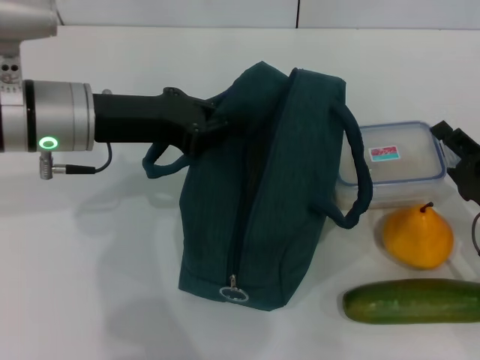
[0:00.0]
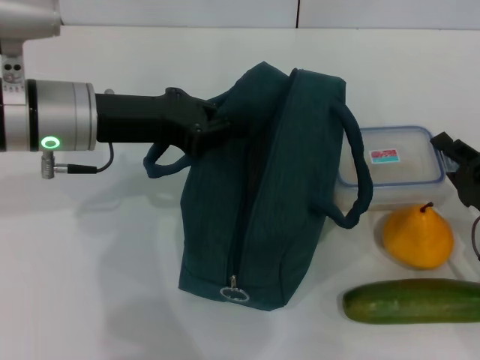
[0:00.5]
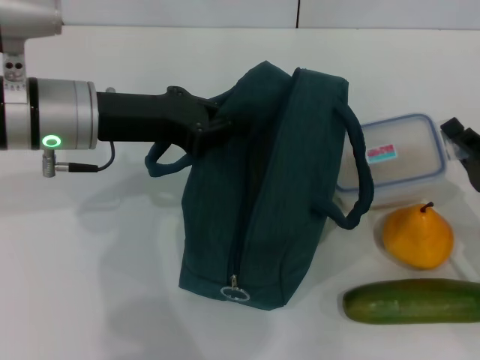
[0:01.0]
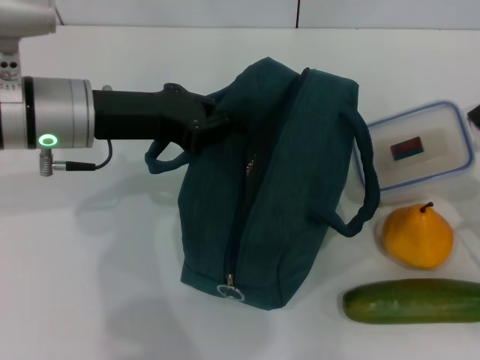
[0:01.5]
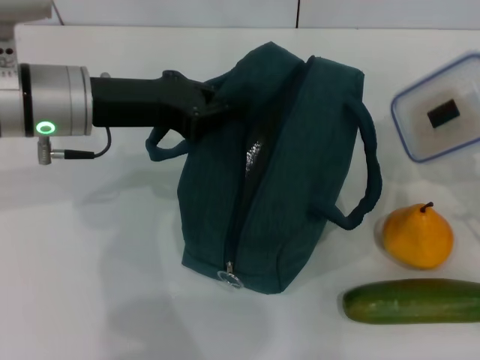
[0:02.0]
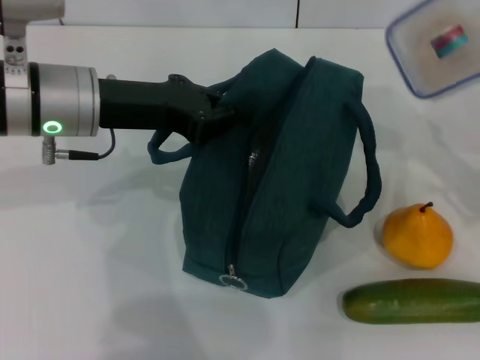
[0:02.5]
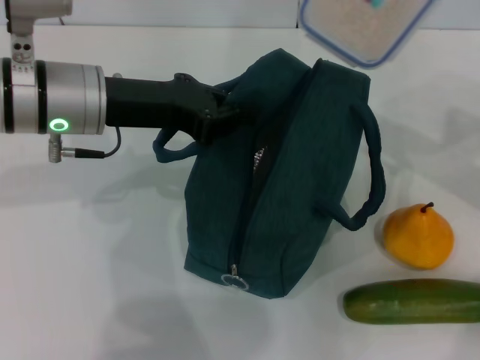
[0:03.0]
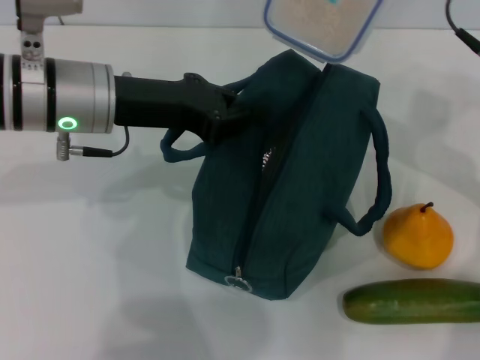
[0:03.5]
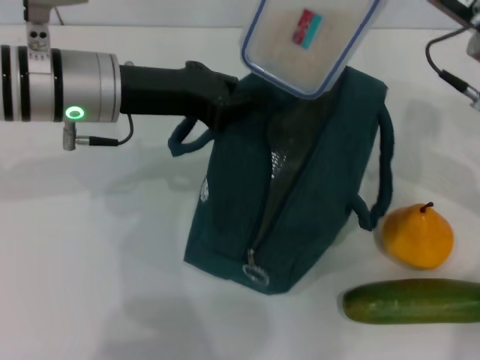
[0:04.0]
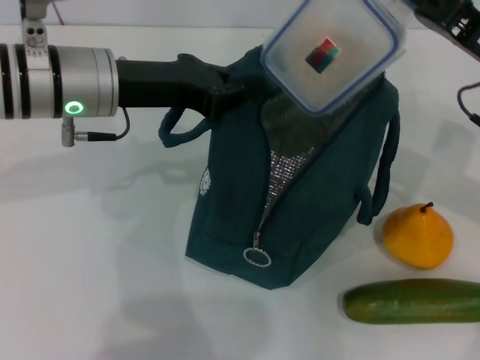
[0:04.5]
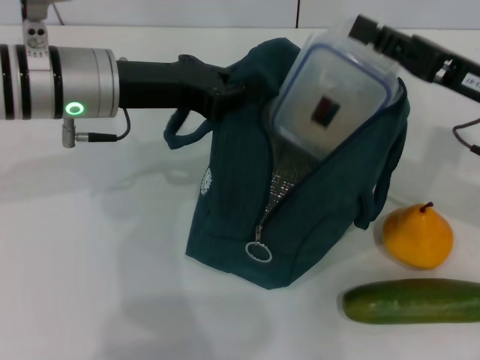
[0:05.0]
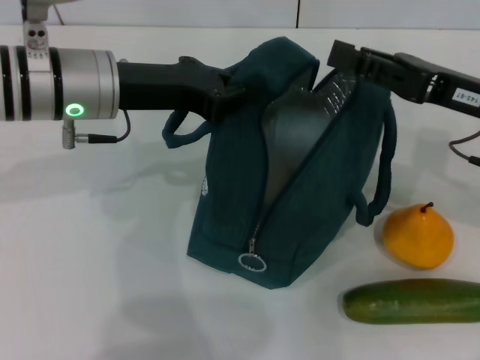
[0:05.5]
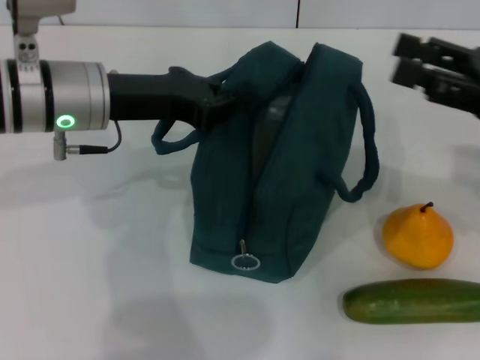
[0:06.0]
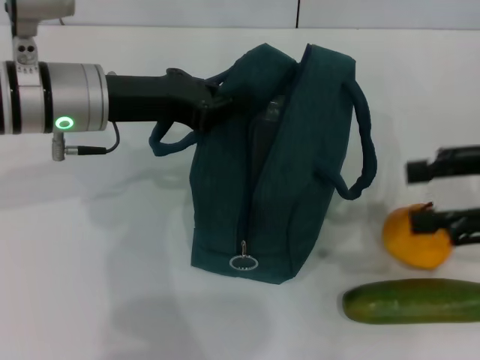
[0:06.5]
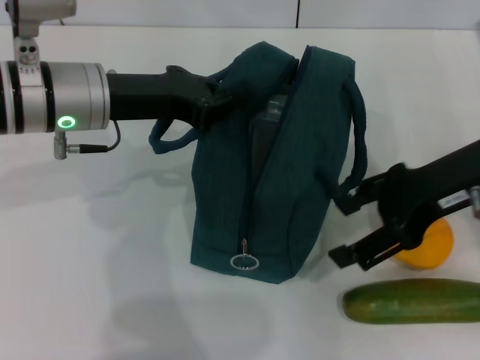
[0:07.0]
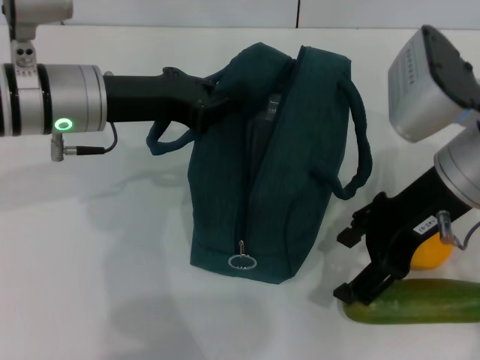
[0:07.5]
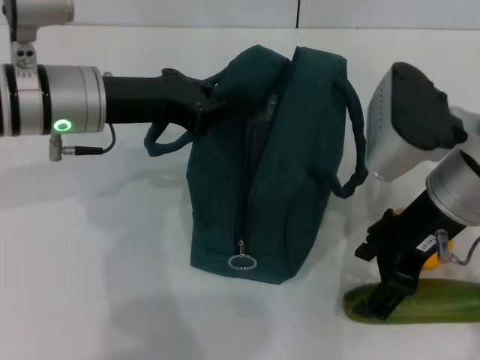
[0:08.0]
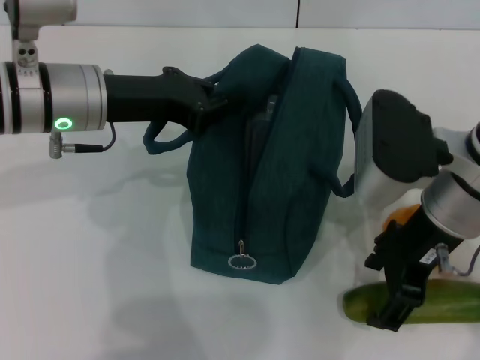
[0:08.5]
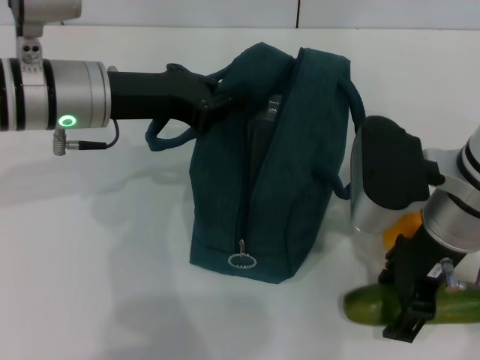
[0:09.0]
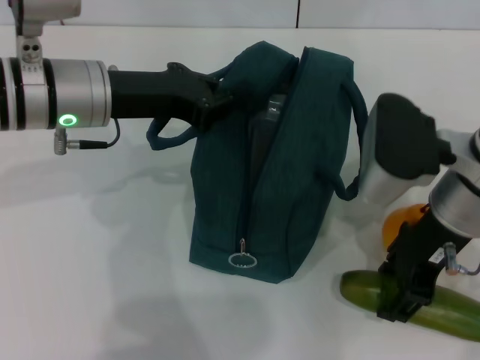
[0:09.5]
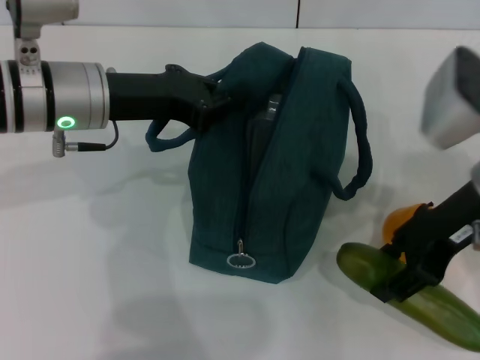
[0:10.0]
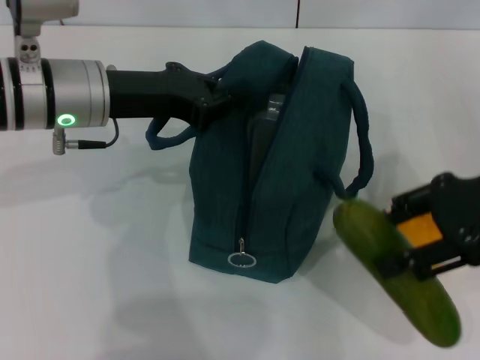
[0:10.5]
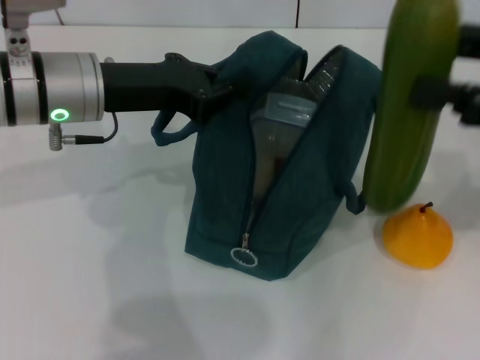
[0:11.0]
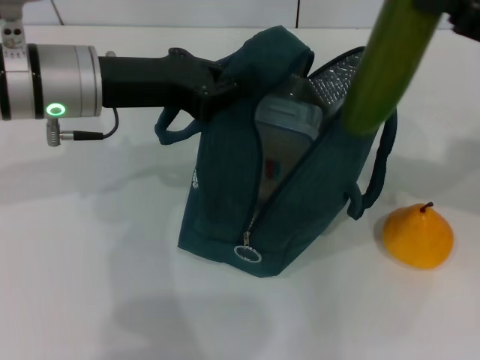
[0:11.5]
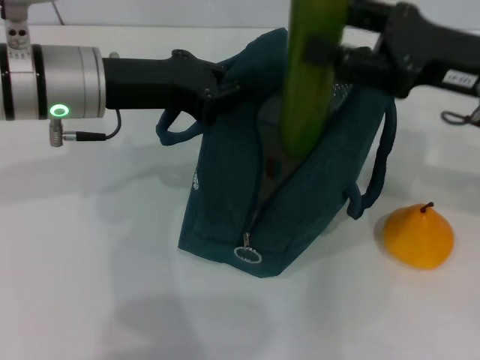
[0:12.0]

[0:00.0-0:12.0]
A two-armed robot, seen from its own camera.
Step, 0:01.5 to 0:05.5: Place the lunch box into the lunch bag with your right hand.
Step, 0:06.0 to 0:09.0: Pick up the cucumber with your right hand.
0:00.0 to 0:02.0: The right gripper moves upward, roughly 5 cm, and closes its fingers.
0:02.0 to 0:04.0: The right gripper moves to the left, upward and forward, about 20 cm.
0:04.0 to 0:06.0: The right gripper heads to the right and backward, covering about 10 cm, and opens its fingers.
0:06.0 to 0:08.0: The right gripper shifts about 15 cm to the left.
0:10.0 to 0:12.0: The right gripper travels to the right and back again, about 10 cm each way.

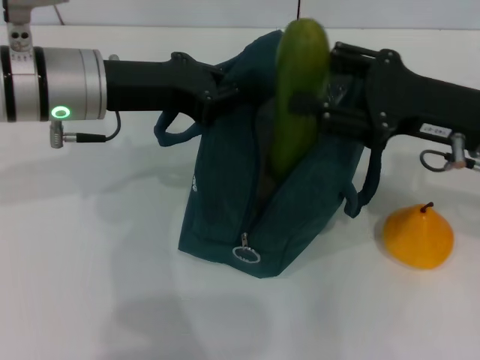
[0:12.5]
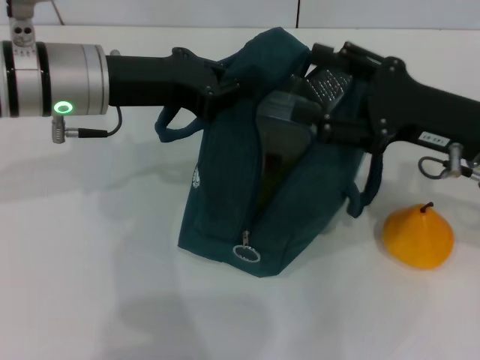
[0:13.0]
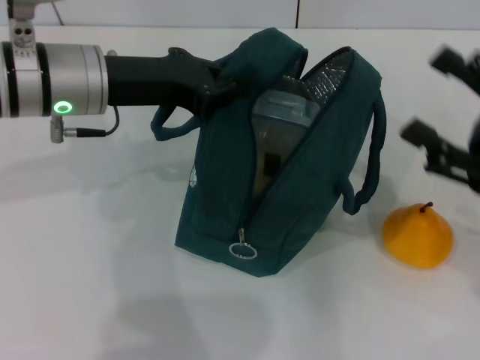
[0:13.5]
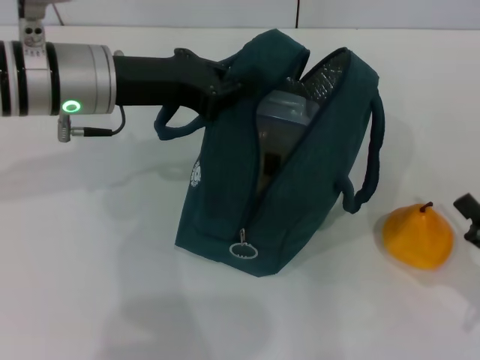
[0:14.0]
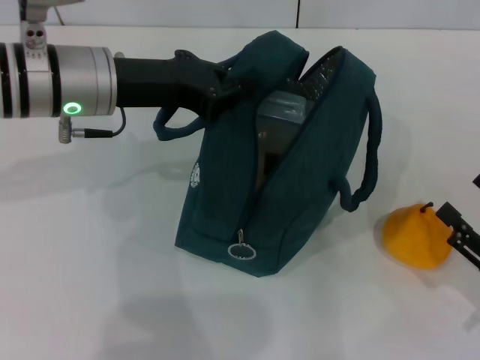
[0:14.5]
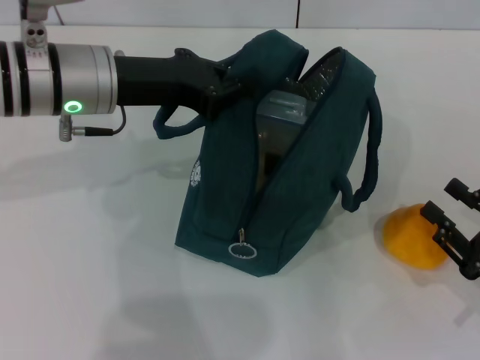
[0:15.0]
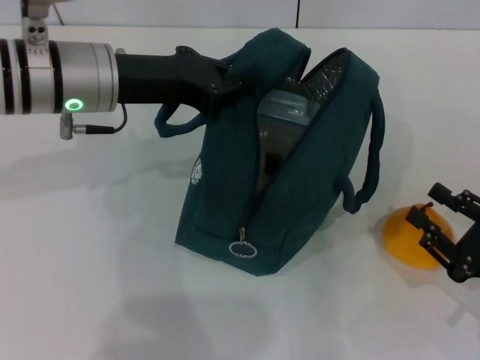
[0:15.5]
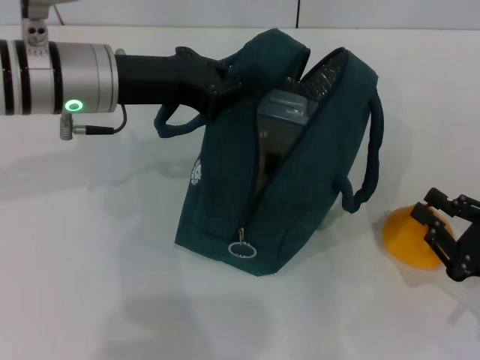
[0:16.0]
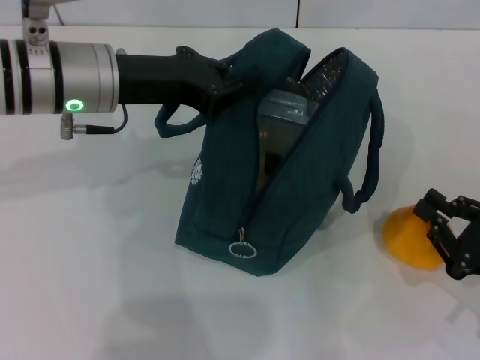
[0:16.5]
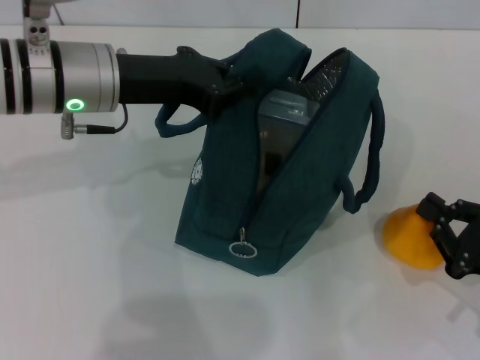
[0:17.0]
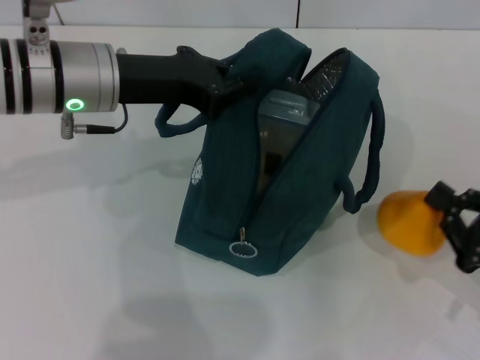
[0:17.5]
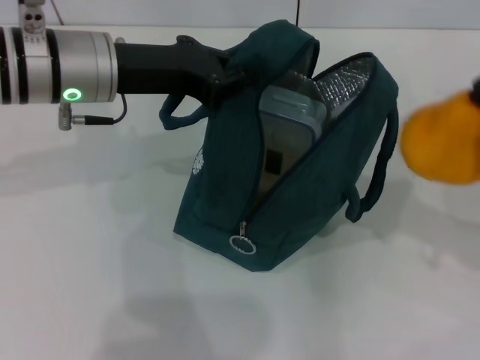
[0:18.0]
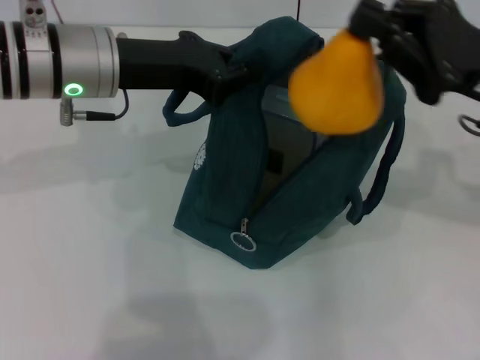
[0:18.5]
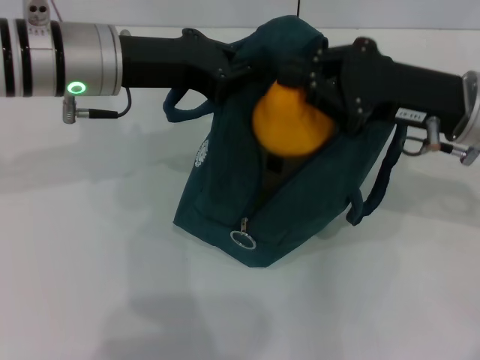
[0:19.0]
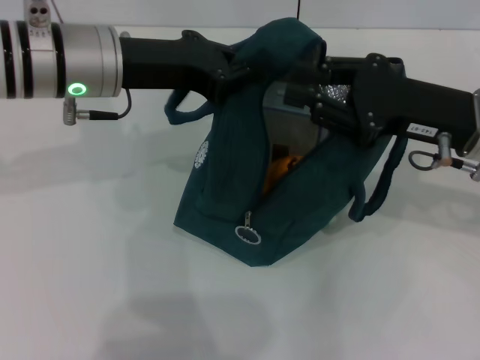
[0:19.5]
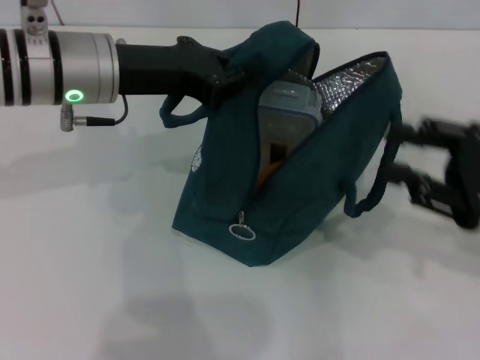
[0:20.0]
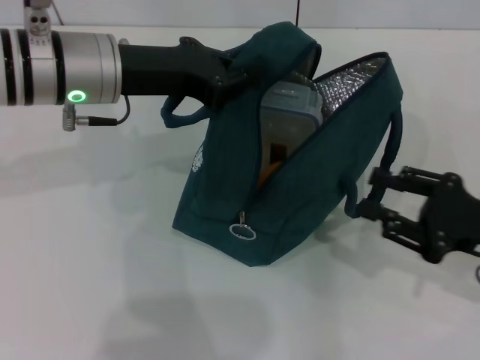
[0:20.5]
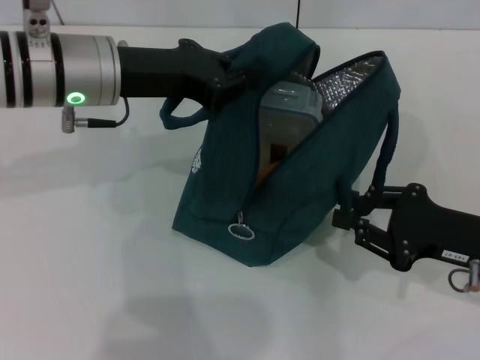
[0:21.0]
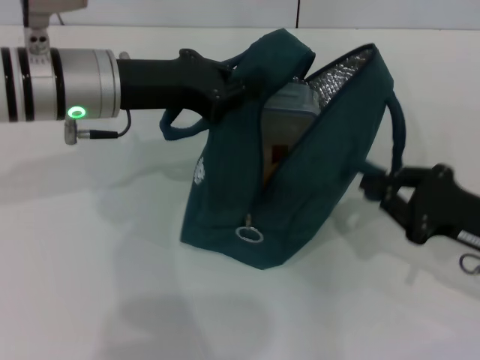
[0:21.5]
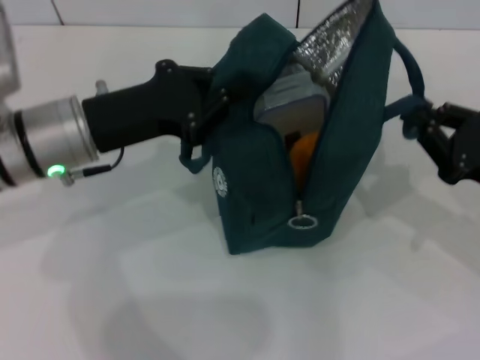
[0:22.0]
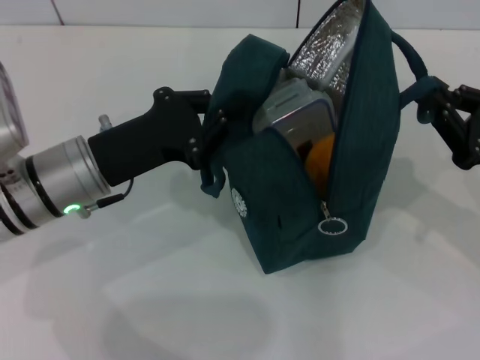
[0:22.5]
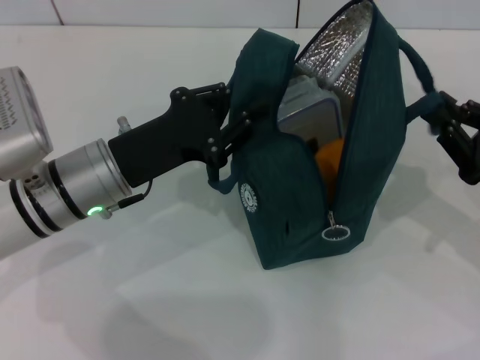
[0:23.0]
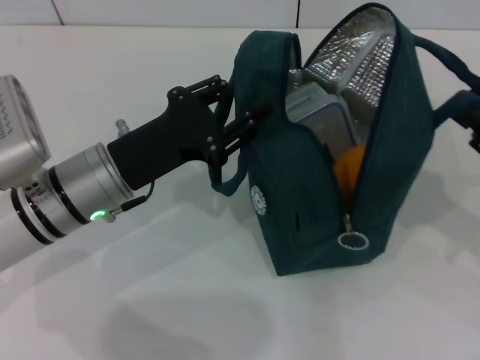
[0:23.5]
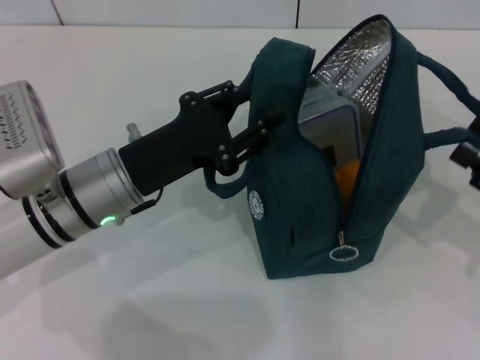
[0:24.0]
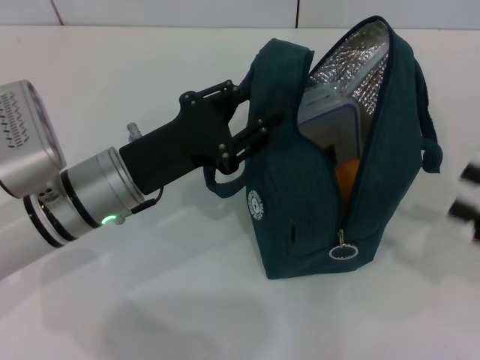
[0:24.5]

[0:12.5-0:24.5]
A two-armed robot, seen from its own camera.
Step, 0:13.5 to 0:17.0: Grab the pear with your right hand.
Step, 0:20.0 to 0:24.0: Hold the lunch bag with your right hand.
0:12.5 to 0:14.5: The right gripper heads backward, downward and to the right, covering about 20 cm.
0:14.5 to 0:16.5: The right gripper closes.
0:16.5 to 0:18.5: The right gripper heads upward, forward and to the left, covering roughly 20 cm.
0:18.5 to 0:20.5: The right gripper shifts approximately 15 cm downward and backward, and opens up.
0:20.5 to 0:22.5: The left gripper heads downward and backward, covering some 10 cm. The right gripper closes its fingers.
0:22.5 to 0:24.5: The right gripper is displaced to the right and backward by roughly 10 cm, and opens up; the left gripper opens its fingers.

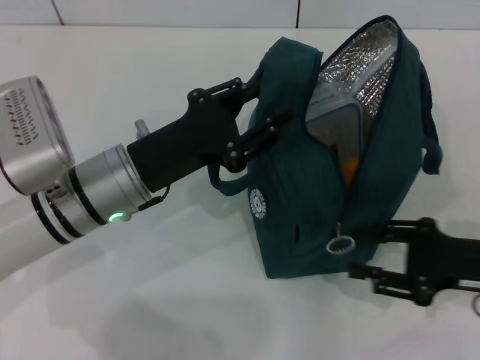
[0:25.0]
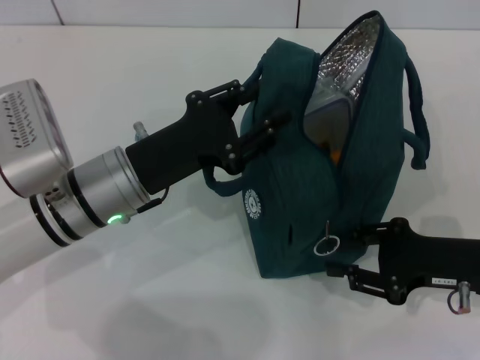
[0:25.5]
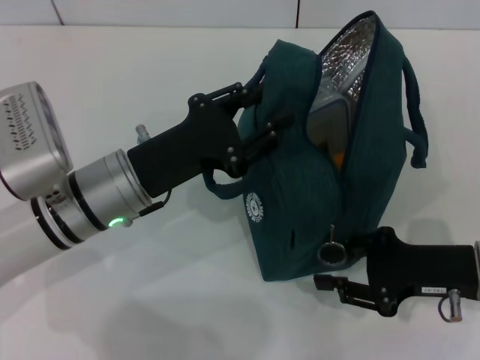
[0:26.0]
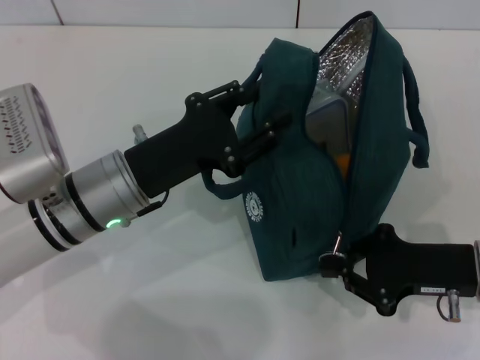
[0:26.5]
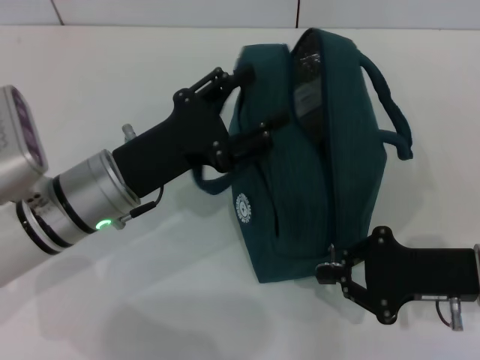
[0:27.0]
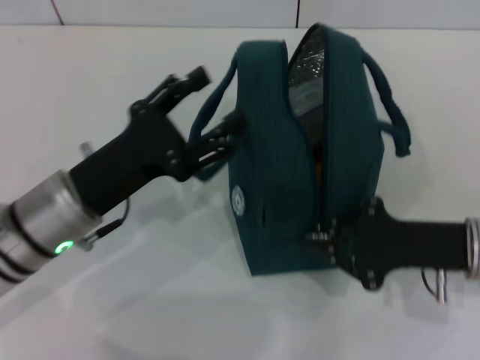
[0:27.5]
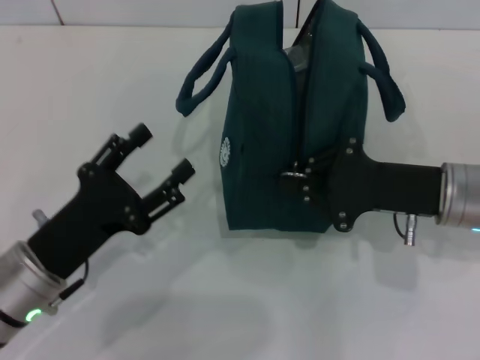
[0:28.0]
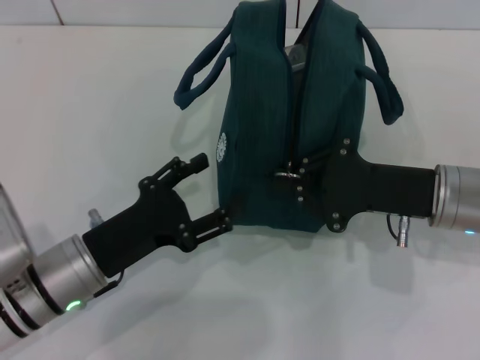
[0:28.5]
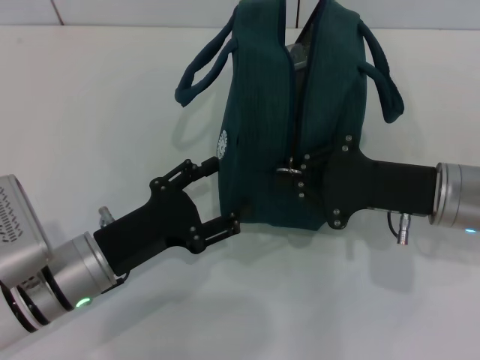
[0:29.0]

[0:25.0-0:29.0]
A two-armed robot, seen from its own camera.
Step, 0:25.0 to 0:27.0: Hold the lunch bag with your left hand.
0:25.0 to 0:27.0: The right gripper closes up.
0:27.0 to 0:29.0: The right gripper ends up some 5 cm from where it was. The left gripper goes approximately 5 cm downward and backward.
